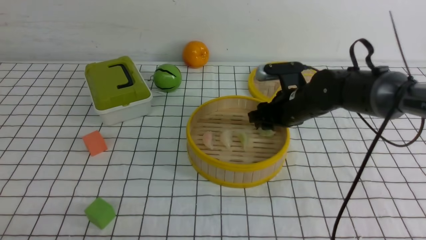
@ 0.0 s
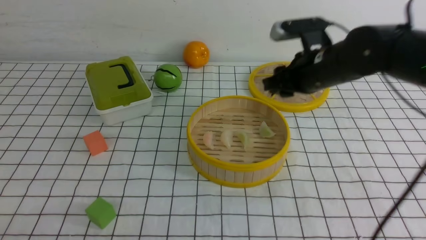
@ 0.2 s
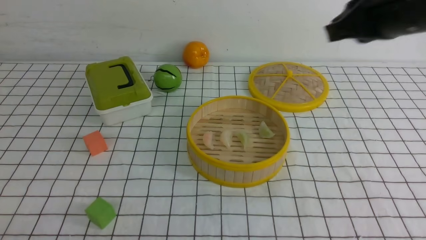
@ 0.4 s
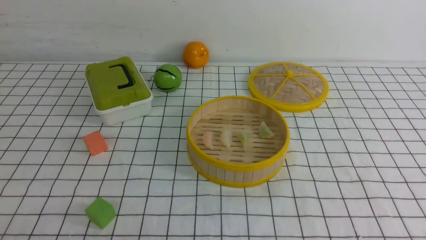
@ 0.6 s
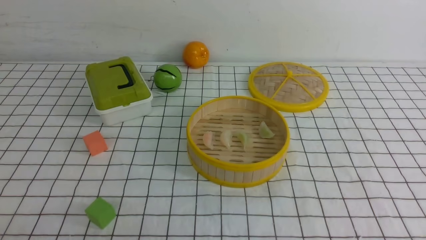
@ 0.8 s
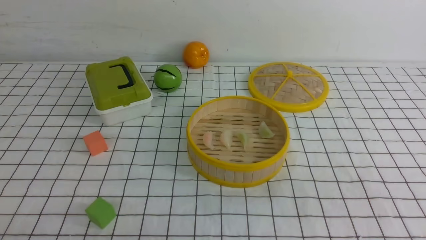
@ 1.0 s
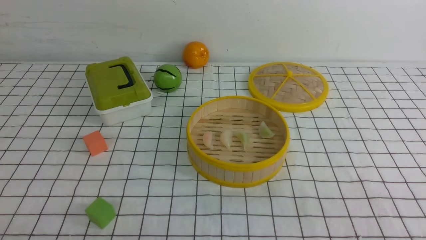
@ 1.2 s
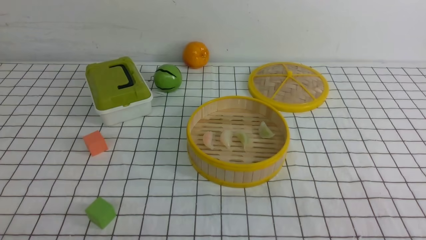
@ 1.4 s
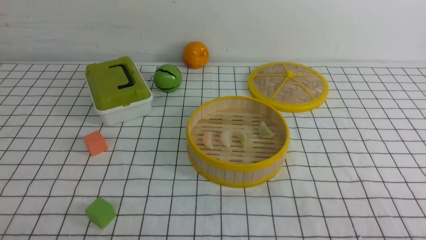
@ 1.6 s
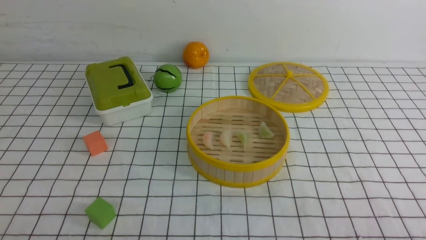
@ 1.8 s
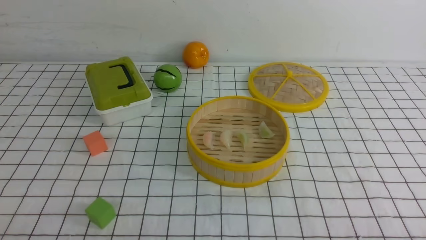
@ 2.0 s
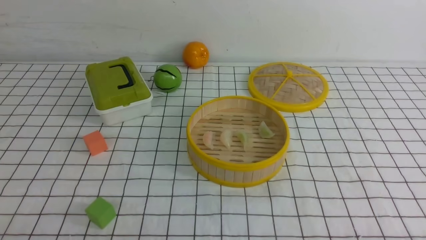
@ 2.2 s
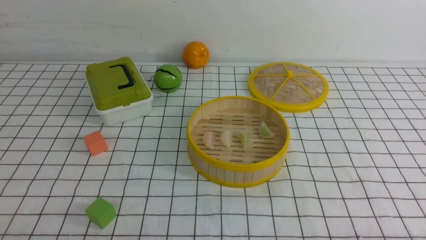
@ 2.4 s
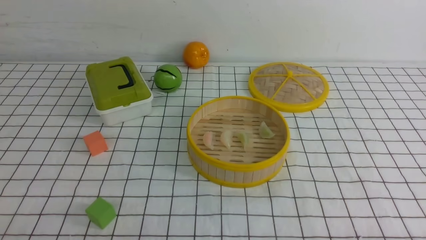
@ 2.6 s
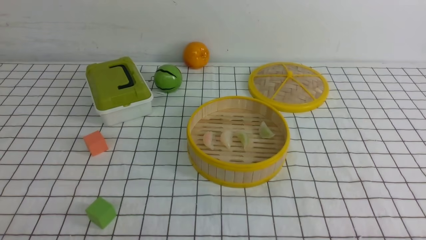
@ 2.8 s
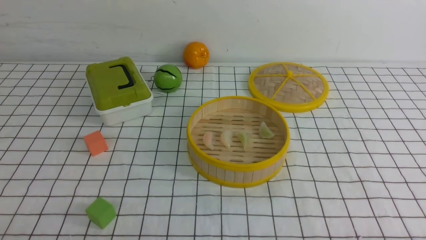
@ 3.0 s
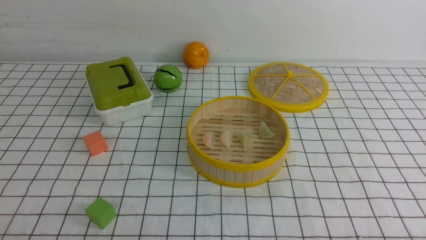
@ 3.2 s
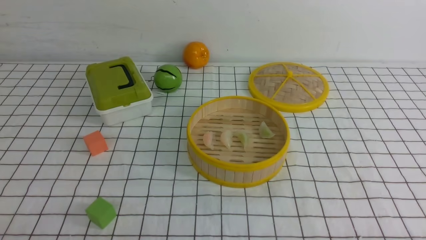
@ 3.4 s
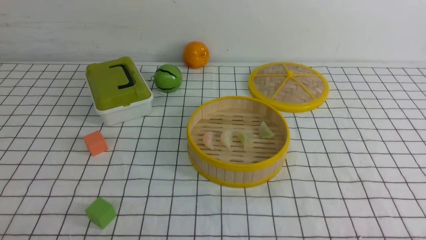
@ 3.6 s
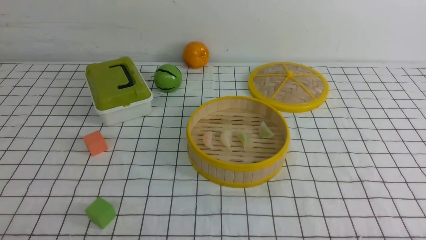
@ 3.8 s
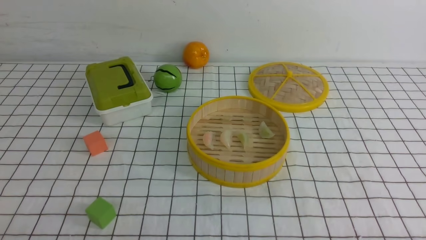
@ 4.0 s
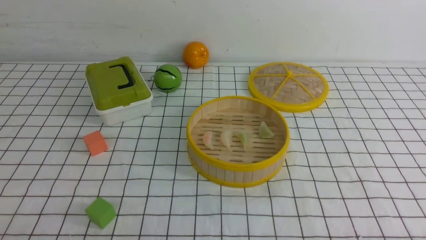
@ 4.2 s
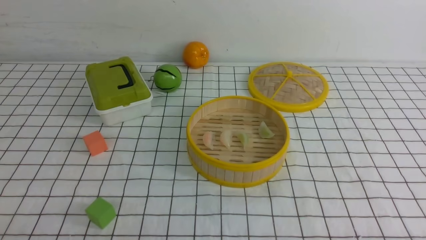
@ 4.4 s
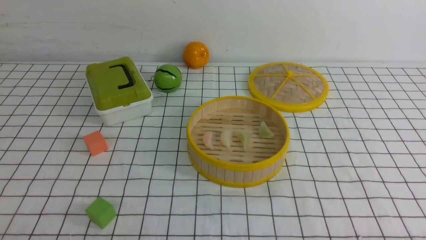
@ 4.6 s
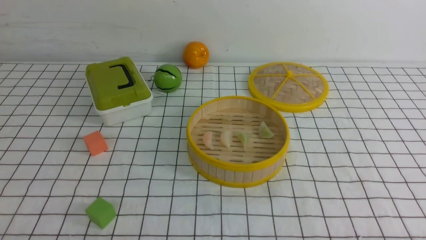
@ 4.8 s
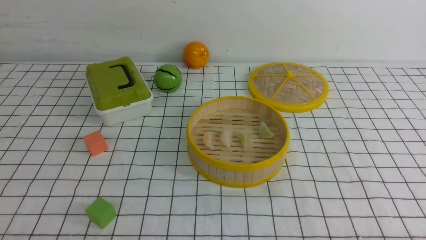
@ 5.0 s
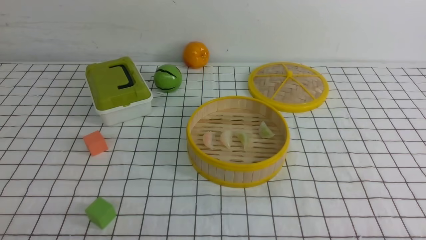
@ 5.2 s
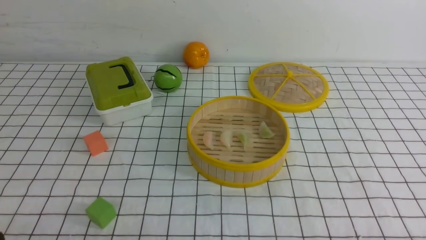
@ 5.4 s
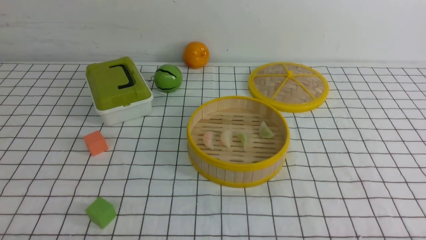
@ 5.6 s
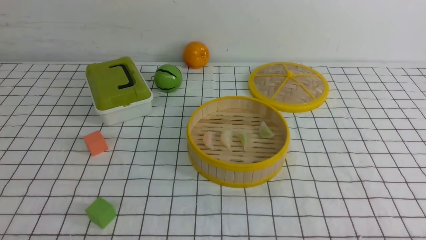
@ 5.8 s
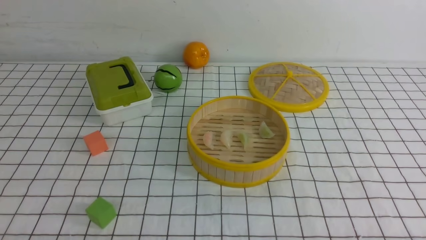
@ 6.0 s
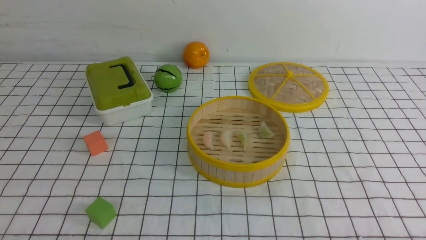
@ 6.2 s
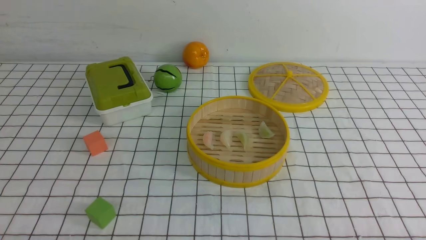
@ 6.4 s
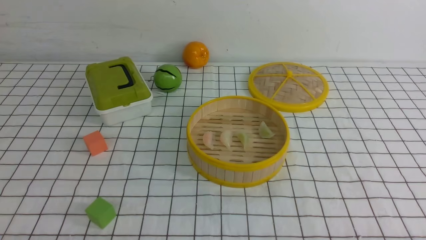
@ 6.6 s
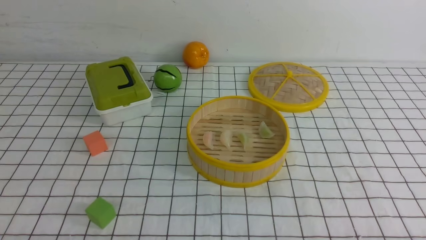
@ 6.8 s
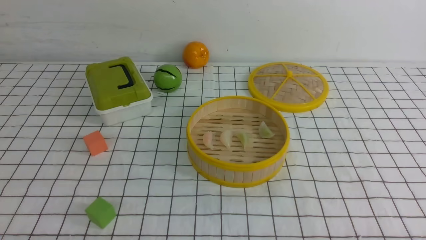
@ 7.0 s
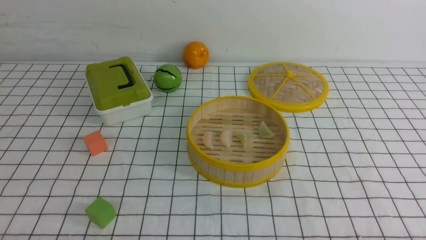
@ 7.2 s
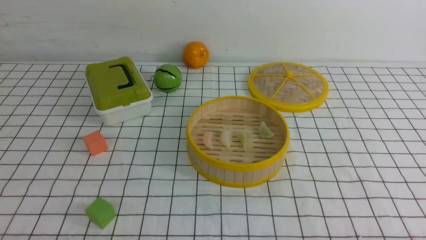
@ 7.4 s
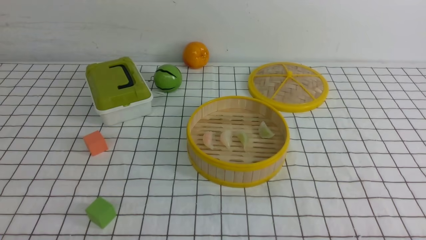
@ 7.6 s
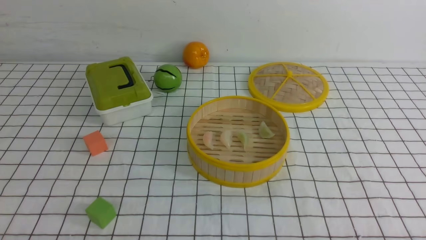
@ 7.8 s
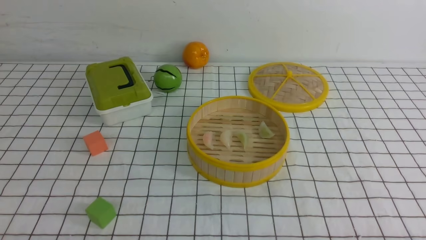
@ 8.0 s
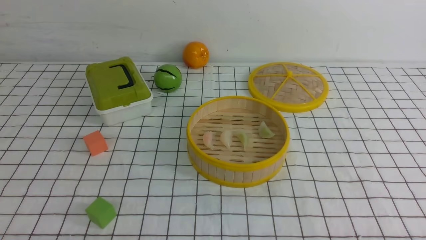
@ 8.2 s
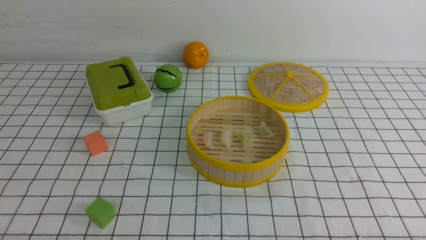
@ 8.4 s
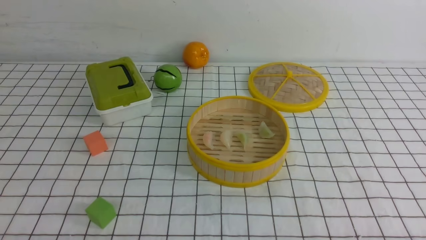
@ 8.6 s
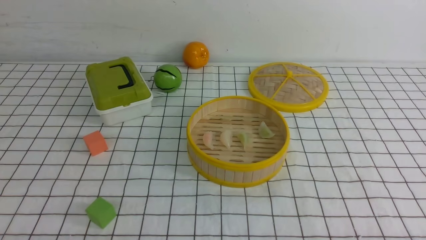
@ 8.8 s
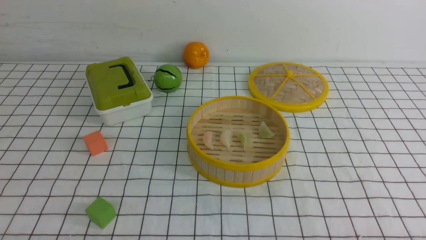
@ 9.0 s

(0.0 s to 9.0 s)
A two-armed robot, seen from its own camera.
Task of the whole recording: put the dumplings into the steamer on the table with the white tablecloth.
0.0 s - 1.6 s: The right gripper moves backward and to the right, roughly 35 cm, and closes its fingers.
3.0 s - 4.4 s: Both grippers stay put.
6.0 s - 9.0 s: The two grippers keep their place.

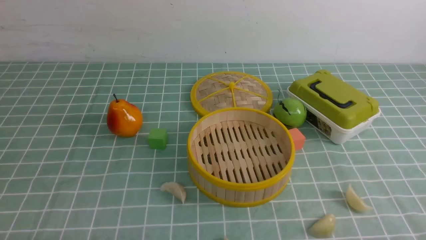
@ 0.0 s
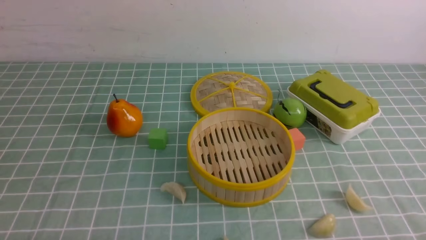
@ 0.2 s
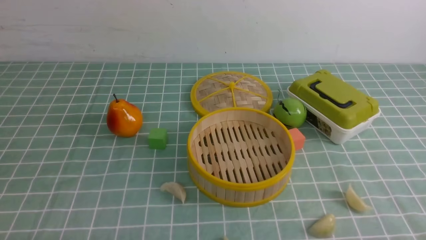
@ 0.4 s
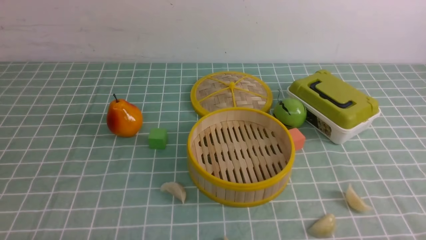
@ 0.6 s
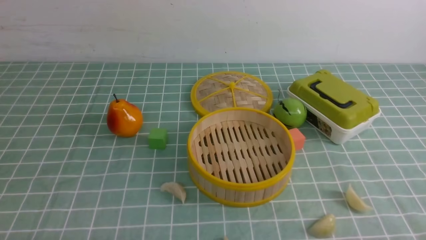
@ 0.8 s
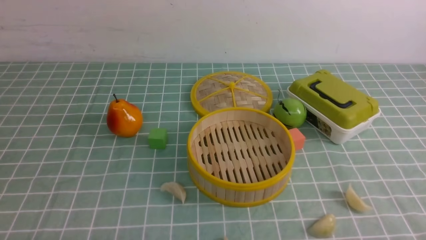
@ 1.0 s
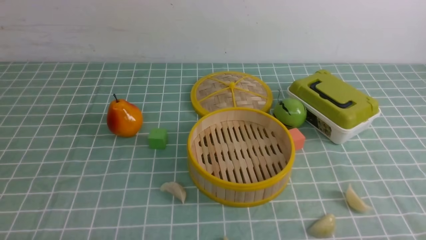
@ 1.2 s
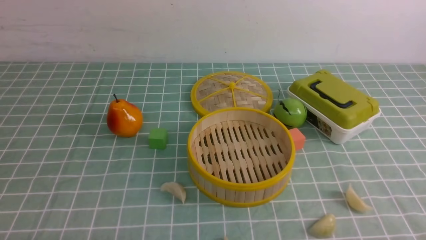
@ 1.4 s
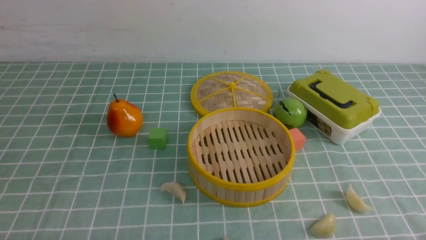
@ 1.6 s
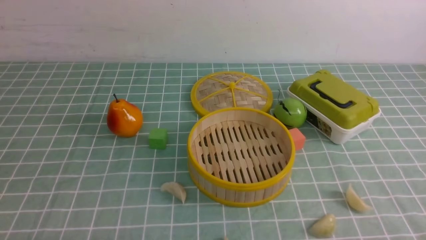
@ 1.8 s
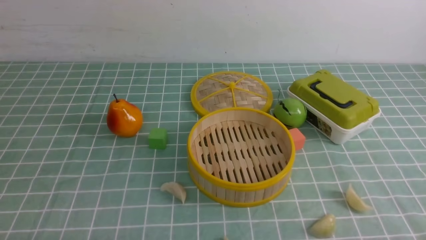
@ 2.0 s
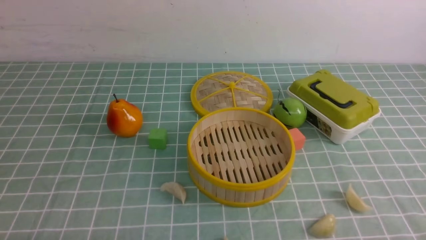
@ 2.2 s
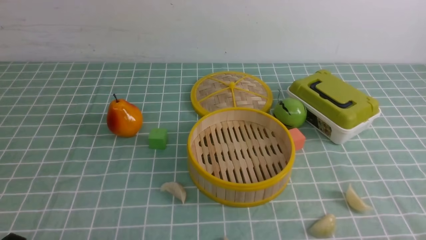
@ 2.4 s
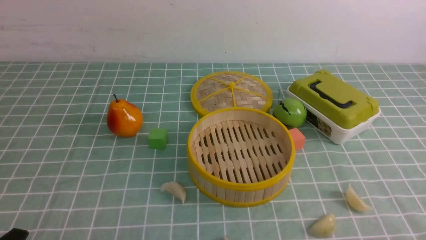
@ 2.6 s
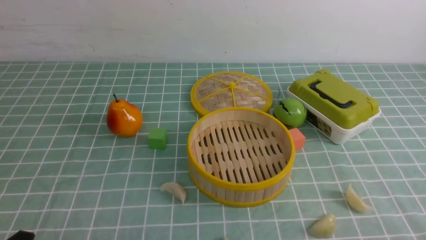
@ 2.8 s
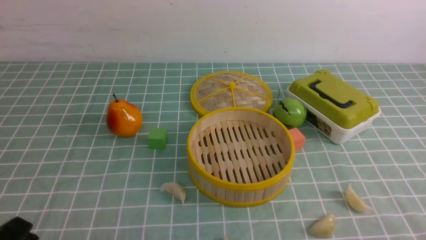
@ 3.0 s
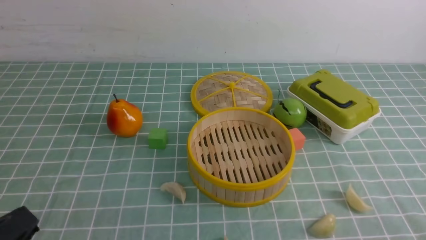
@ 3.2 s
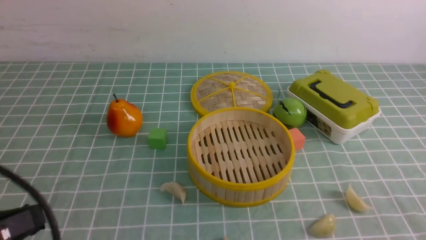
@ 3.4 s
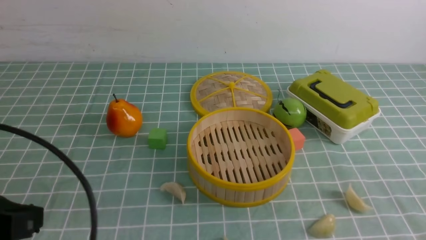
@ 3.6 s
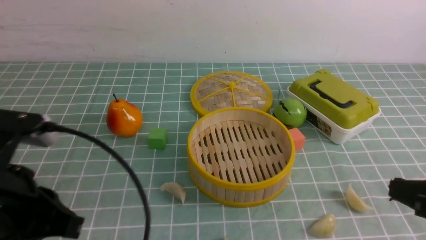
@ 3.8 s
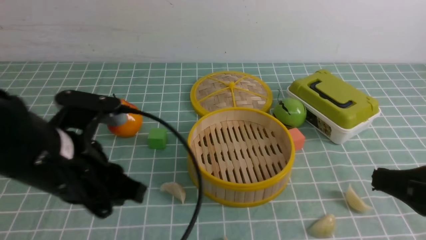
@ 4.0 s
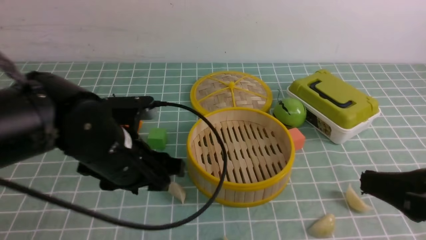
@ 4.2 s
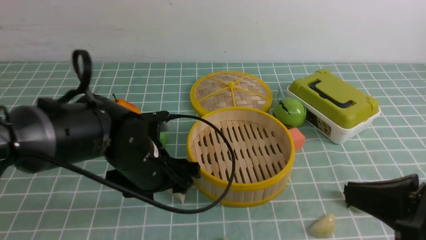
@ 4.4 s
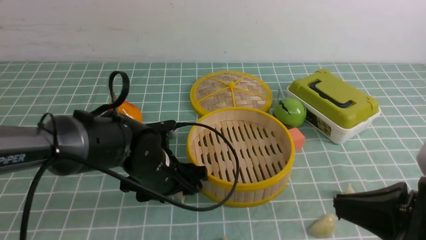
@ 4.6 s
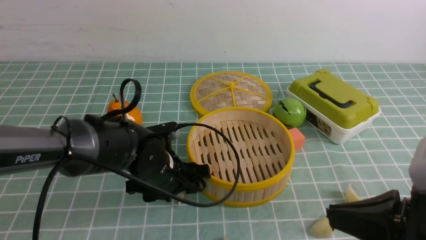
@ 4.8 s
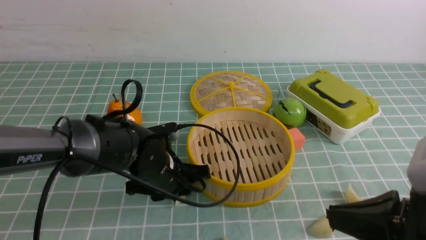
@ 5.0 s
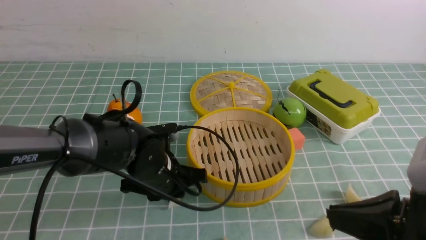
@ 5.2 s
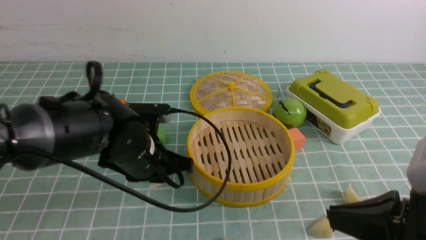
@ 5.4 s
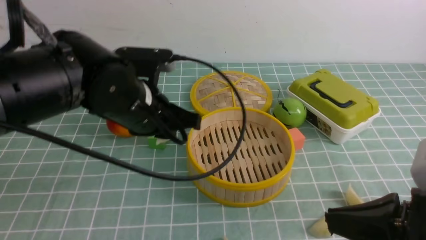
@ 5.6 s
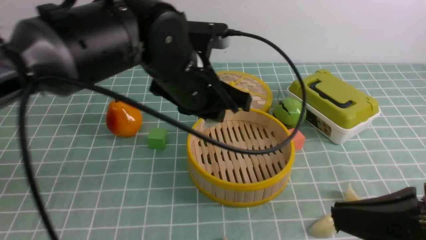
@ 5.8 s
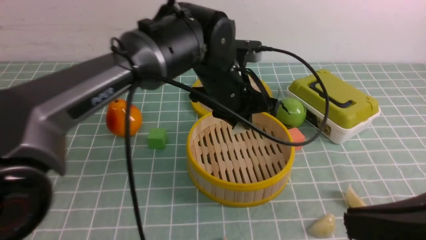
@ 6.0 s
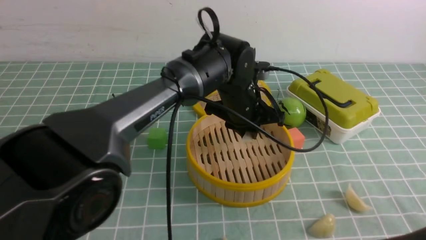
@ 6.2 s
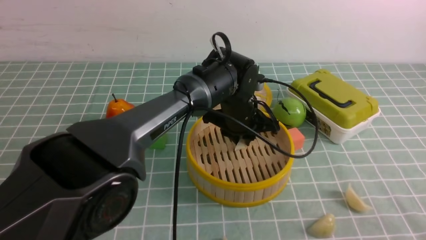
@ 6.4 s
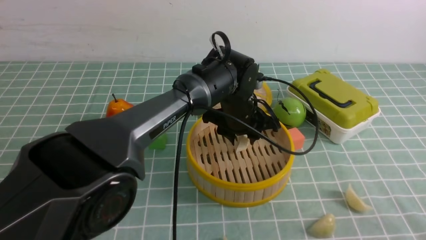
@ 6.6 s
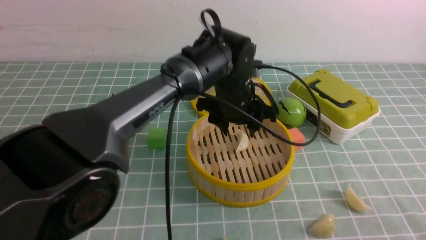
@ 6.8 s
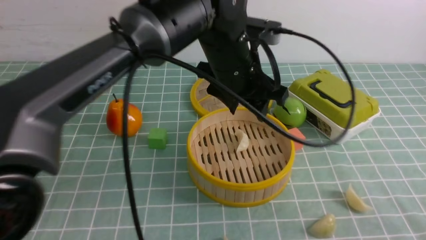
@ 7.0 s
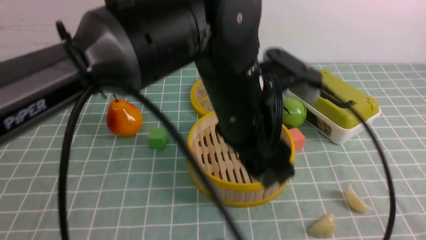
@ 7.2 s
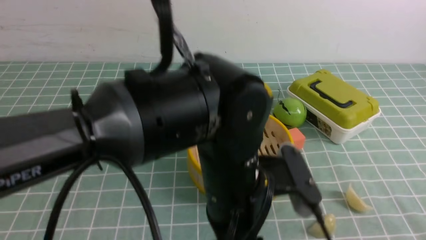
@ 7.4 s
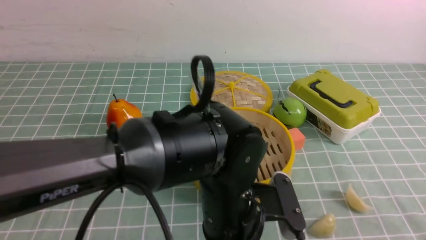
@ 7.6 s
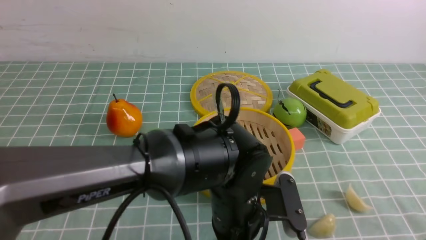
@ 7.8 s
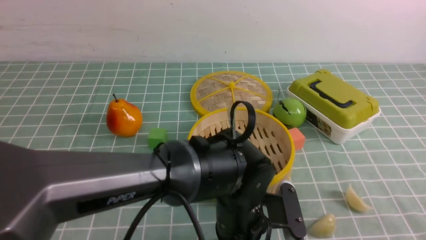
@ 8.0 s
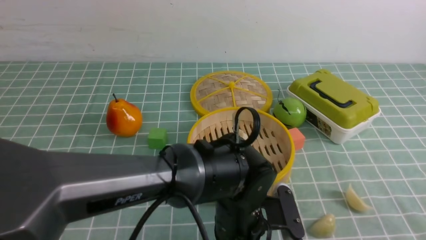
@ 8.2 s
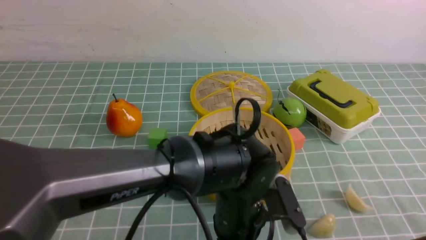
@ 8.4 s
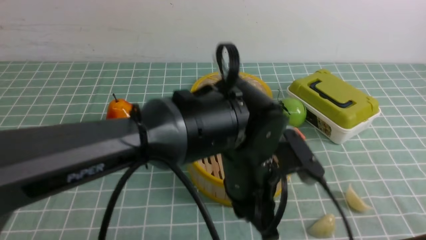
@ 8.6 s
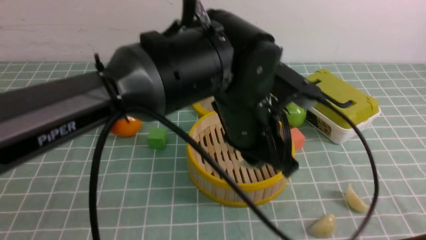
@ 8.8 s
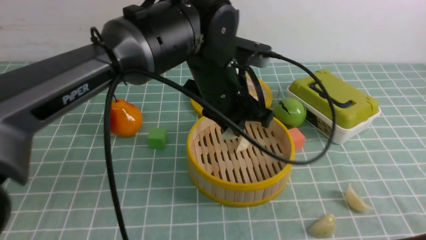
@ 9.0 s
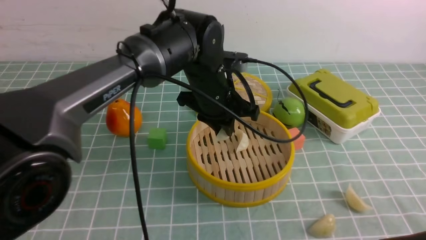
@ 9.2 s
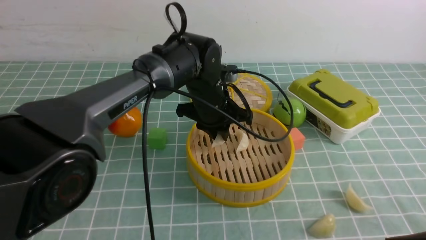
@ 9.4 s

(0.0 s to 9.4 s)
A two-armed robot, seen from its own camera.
Task of the whole recording: put the dumplings into the steamer on the table with the blue tablecloth.
Step, 0.0 s - 5.4 s: use the left arm to grab a dumpling.
Step, 5.6 s - 6.6 s: use the left arm to put the dumpling into the steamer.
Step, 6.8 s - 8.6 s: use the left arm to grab a dumpling.
0.0 s - 1.6 s: Both grippers stay about where they are.
1.6 s - 3.2 s: The left gripper heads upward, covering approximately 10 cm.
3.2 s - 4.8 s: The left gripper is displaced forward, to the right and downward by approximately 30 cm, and opens its fingers; the right gripper is displaced forward, to the left and upward by roughly 15 cm.
4.8 s - 6.2 s: The right gripper moves backward, some 5 cm. The left gripper heads to the right, forward and upward, covering some 15 cm, and closes up.
6.2 s - 7.8 s: The left gripper goes approximately 20 cm backward, and opens up.
7.8 s - 9.4 s: The left gripper moves forward, about 20 cm, and closes.
